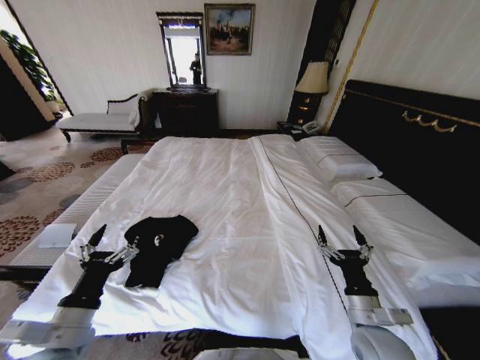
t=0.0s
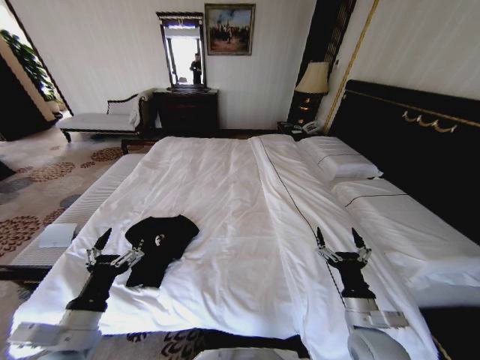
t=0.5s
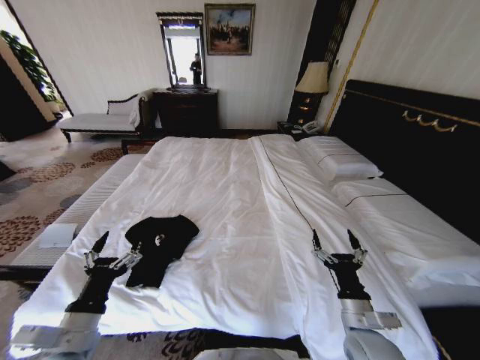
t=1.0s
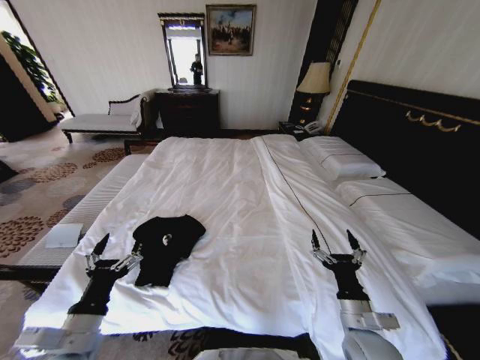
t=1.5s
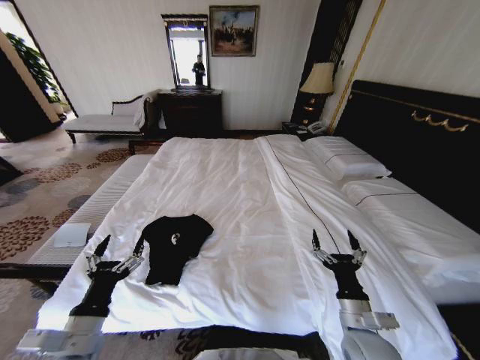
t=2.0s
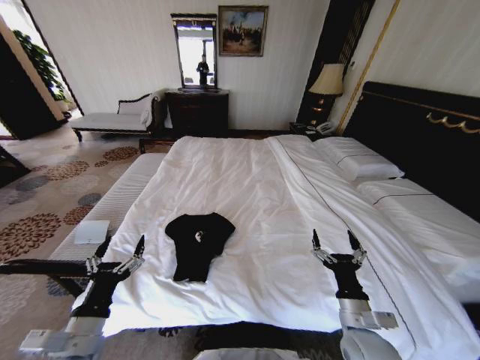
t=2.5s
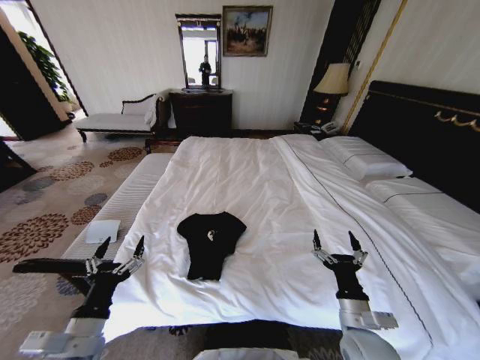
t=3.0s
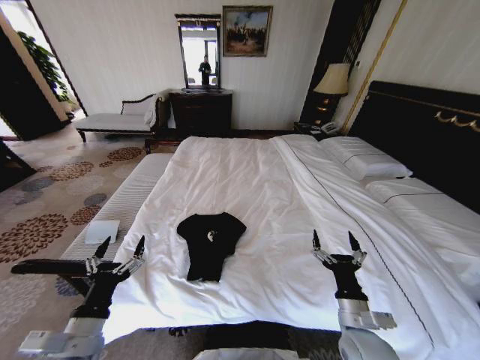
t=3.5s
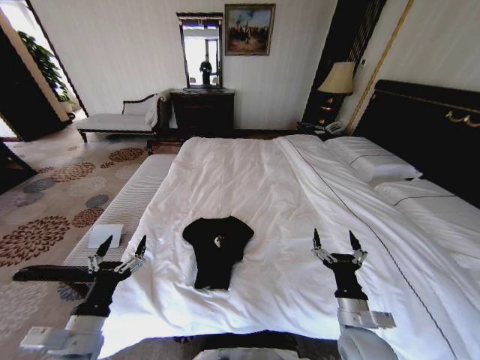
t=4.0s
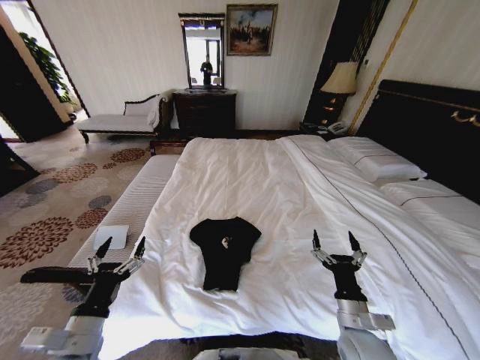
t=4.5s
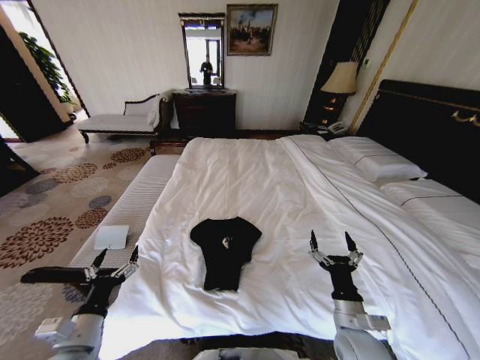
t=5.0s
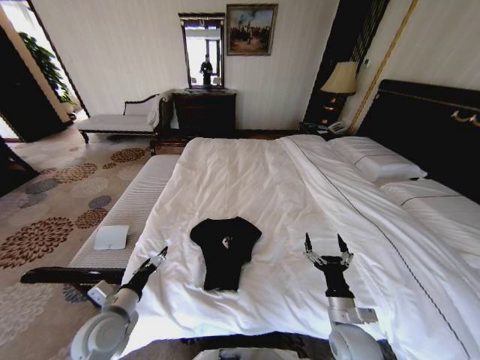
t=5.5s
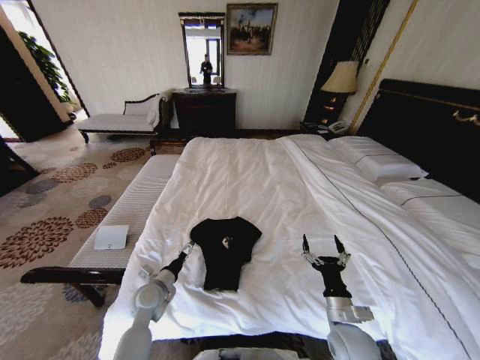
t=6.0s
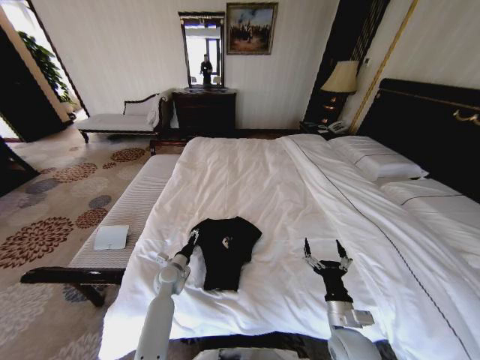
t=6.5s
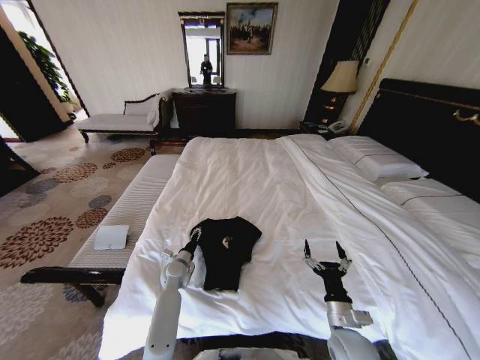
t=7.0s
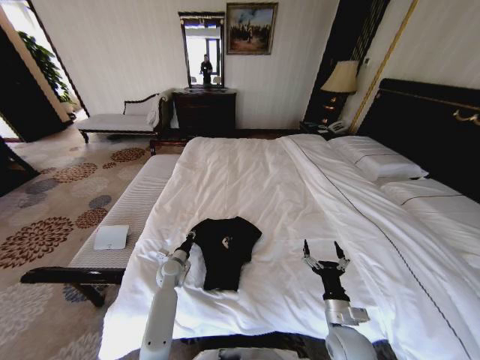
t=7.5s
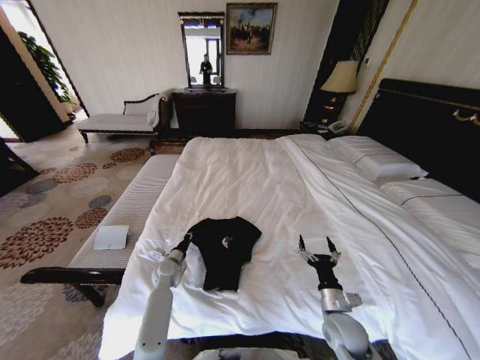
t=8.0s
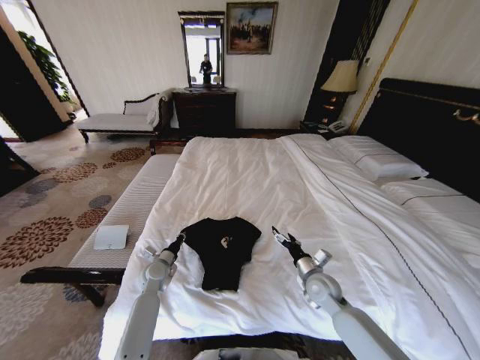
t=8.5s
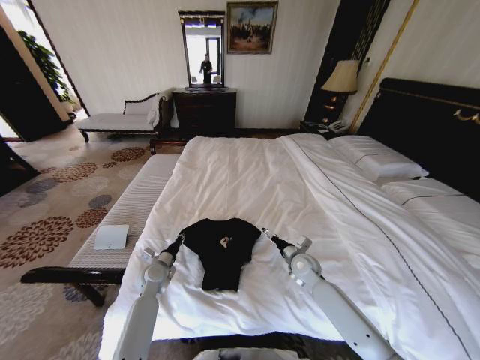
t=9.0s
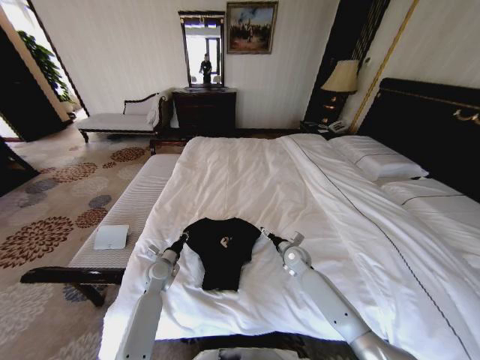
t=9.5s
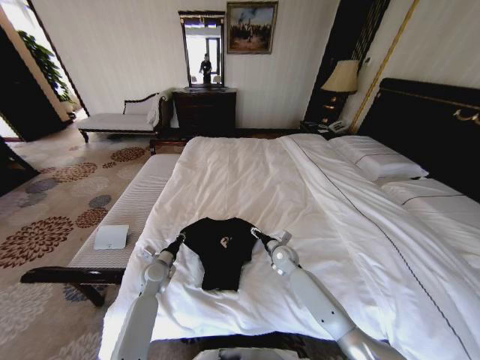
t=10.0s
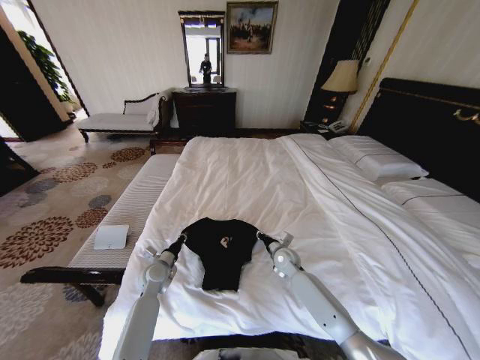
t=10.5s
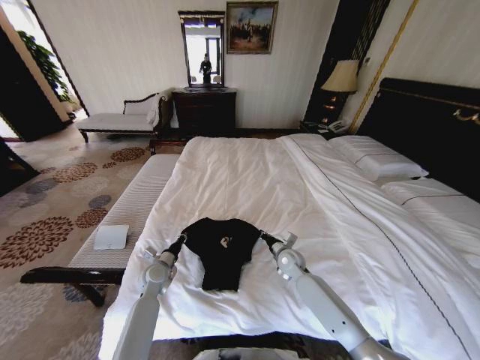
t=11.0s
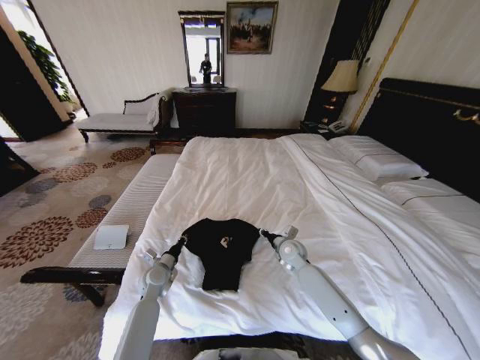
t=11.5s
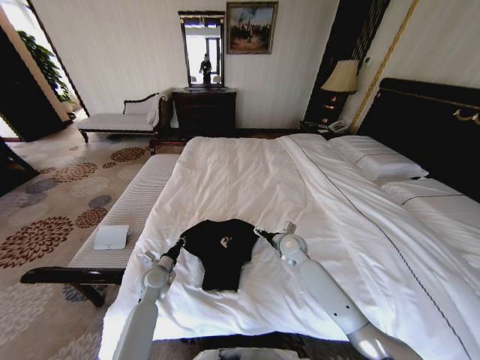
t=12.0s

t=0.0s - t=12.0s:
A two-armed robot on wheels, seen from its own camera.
Task of the whole recording: Fold the clothes on the bed.
t=4.0s - t=6.0s: The left gripper shifts approximately 20 cm forward and downward.
t=6.0s - t=8.0s: The left gripper travels forward and downward by approximately 10 cm, and closes.
t=8.0s - t=10.0s: The left gripper moves approximately 5 cm; the right gripper shifts approximately 25 cm forward.
t=10.0s - t=12.0s: The right gripper travels upward by approximately 5 cm, and closes and opens again.

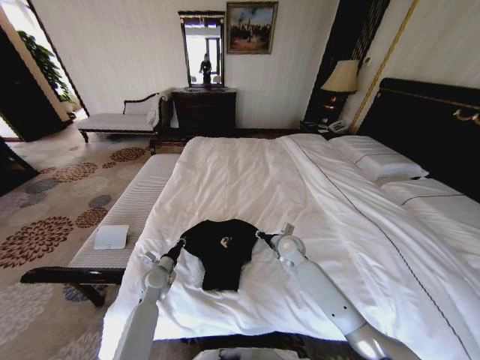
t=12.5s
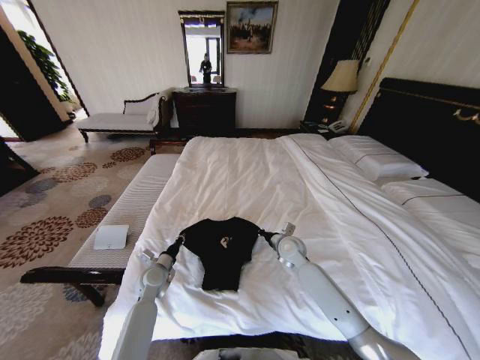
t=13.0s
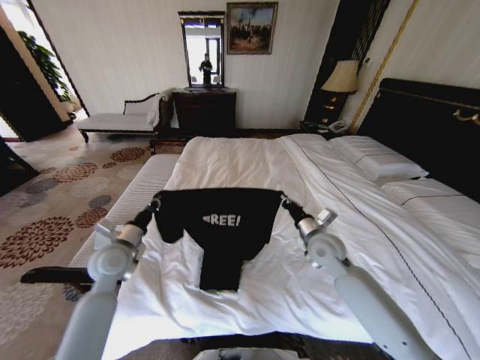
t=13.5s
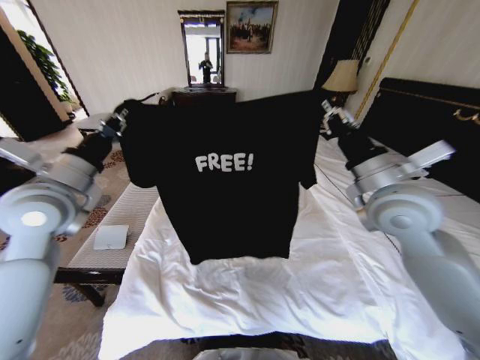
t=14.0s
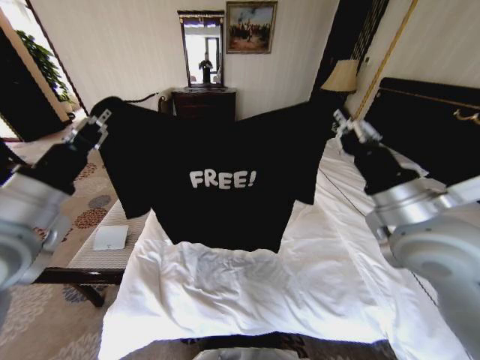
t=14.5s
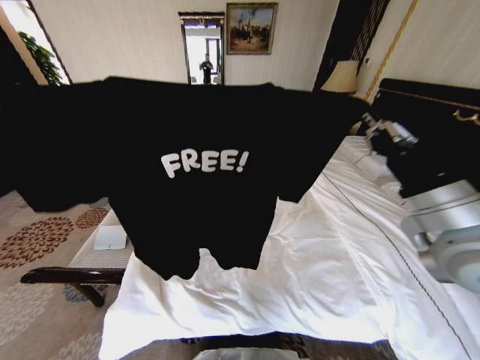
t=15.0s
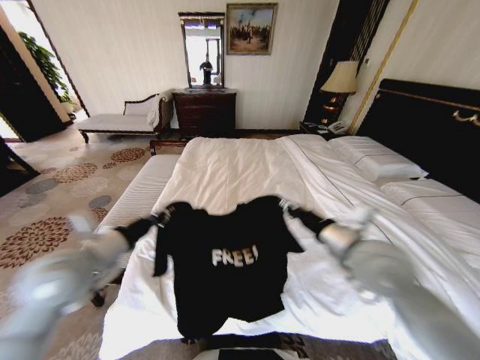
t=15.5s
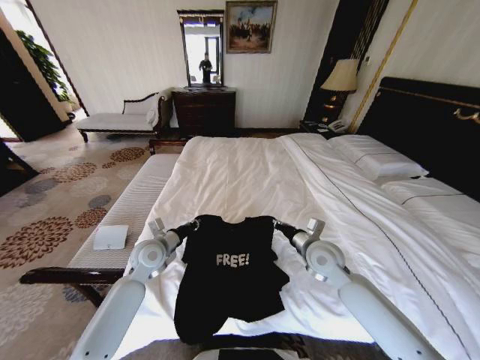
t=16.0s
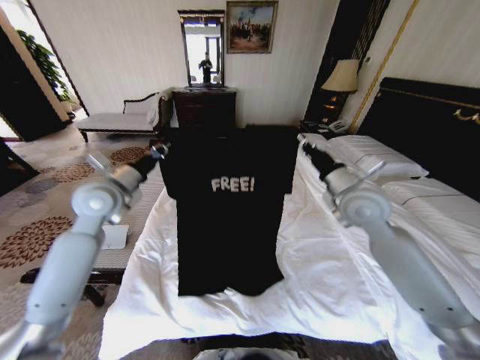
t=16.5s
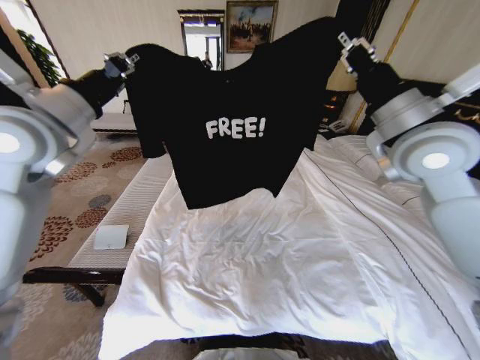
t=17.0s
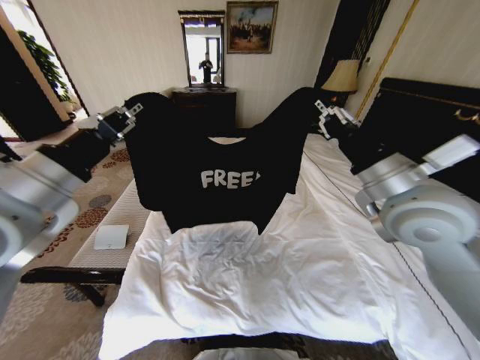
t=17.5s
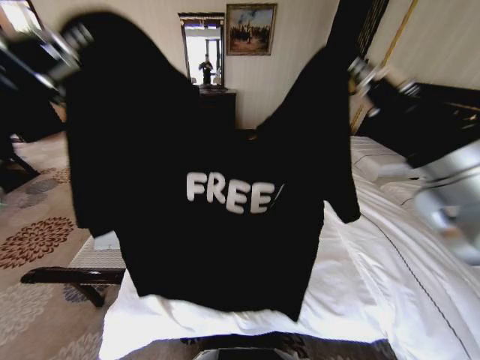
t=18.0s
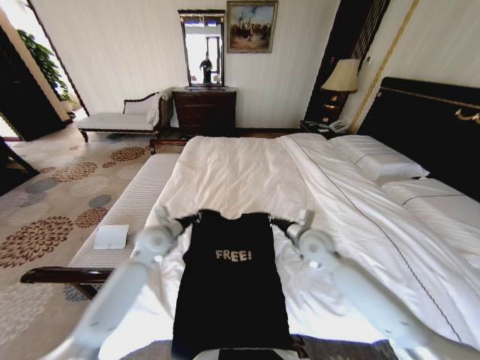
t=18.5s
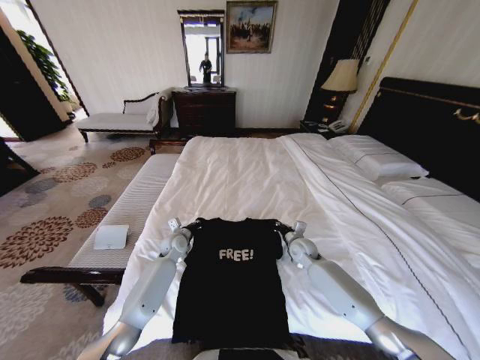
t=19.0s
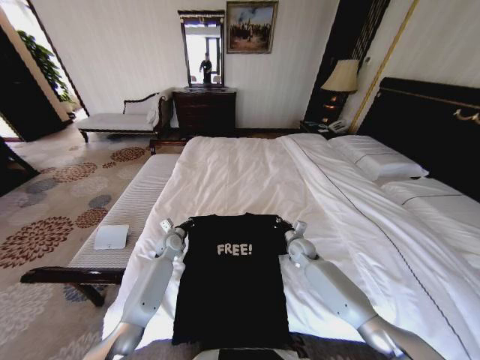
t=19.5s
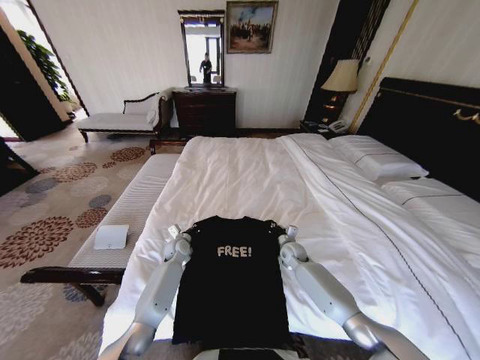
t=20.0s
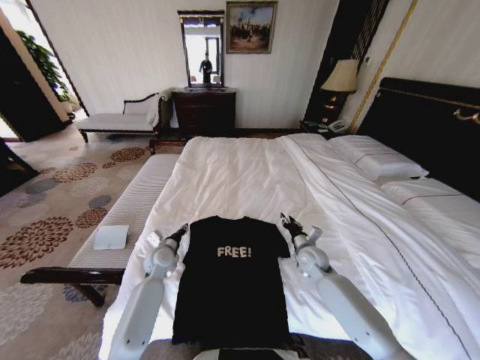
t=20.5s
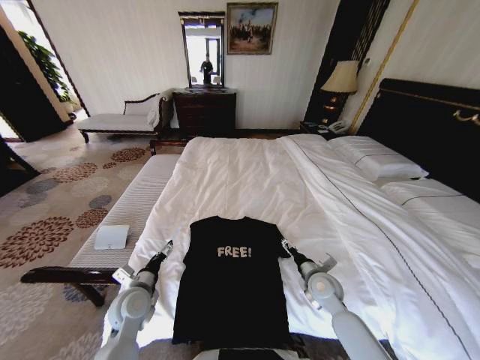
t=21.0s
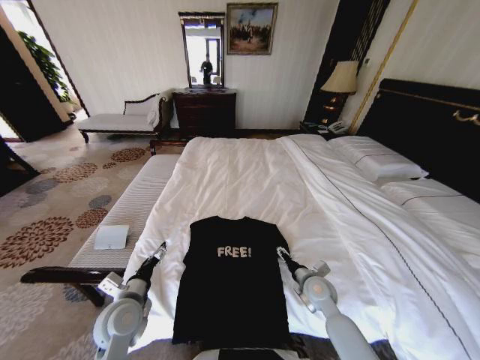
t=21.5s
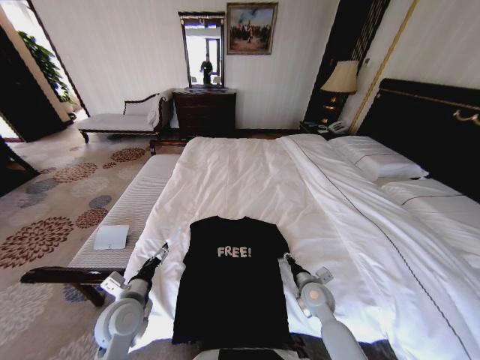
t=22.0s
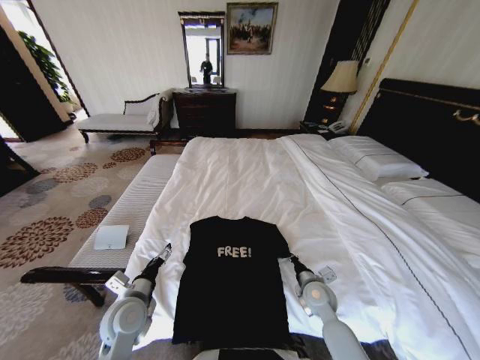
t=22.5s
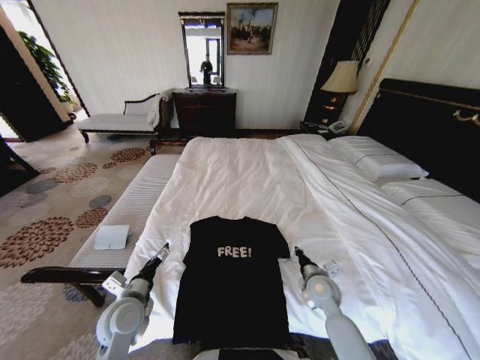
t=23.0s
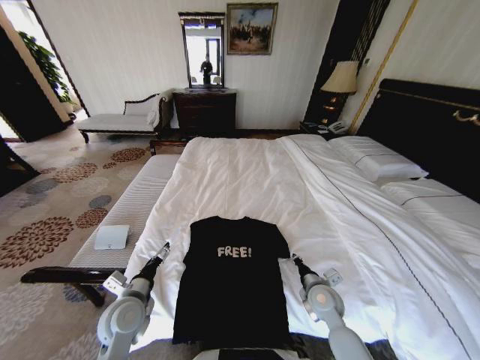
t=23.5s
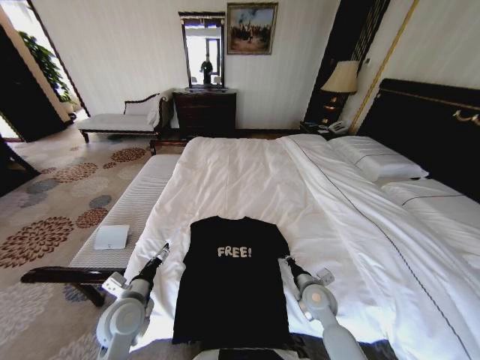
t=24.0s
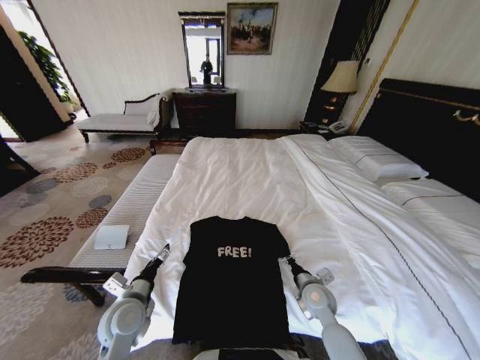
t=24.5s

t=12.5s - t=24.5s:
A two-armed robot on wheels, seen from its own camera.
Task of the whole recording: Fold the clothes on the bed.
t=12.5s - t=14.5s: The right gripper is displaced upward and backward by some 35 cm, and closes up. The left gripper heads upward, covering about 40 cm.
t=14.5s - t=16.5s: The grippers both shift forward by about 15 cm. The right gripper goes downward and returns, some 20 cm each way, while the left gripper moves approximately 25 cm downward and comes back.
t=16.5s - t=18.5s: The right gripper goes up and down, approximately 30 cm each way, reversing 3 times. Meanwhile the left gripper moves up and down over roughly 35 cm, changing direction 3 times.
t=18.5s - t=20.5s: Both grippers travel together downward, some 10 cm. The right gripper opens its fingers; the left gripper opens its fingers.
t=20.5s - t=22.5s: The right gripper is displaced backward by roughly 10 cm, and closes its fingers. Meanwhile the left gripper heads backward, covering roughly 20 cm, and opens its fingers.
t=22.5s - t=24.5s: The grippers stay close to where they were, moving slightly.

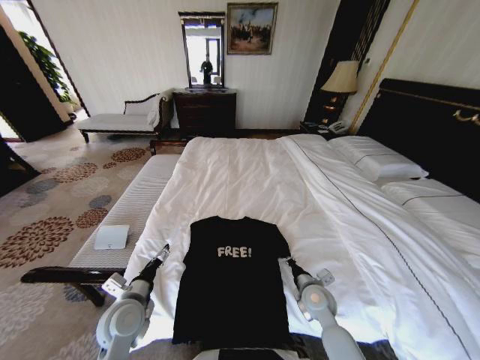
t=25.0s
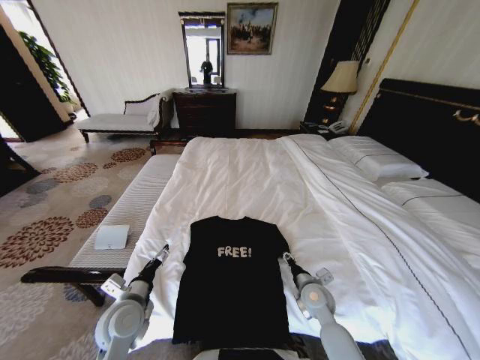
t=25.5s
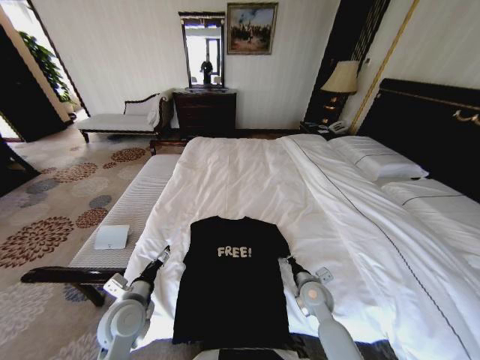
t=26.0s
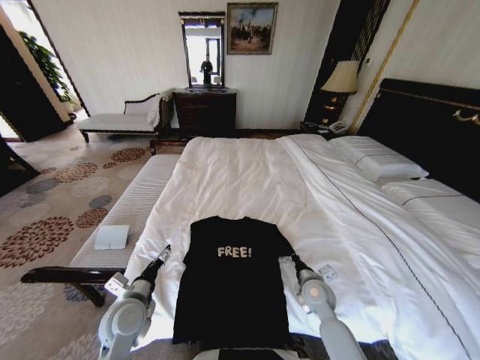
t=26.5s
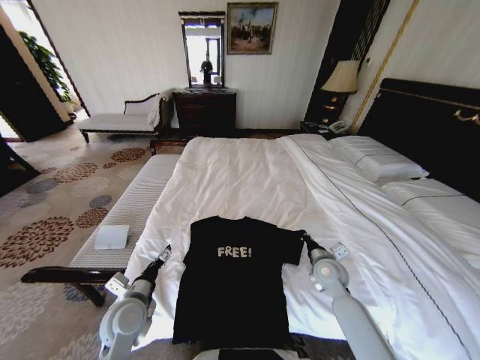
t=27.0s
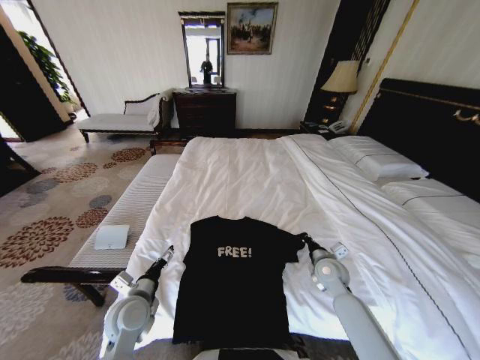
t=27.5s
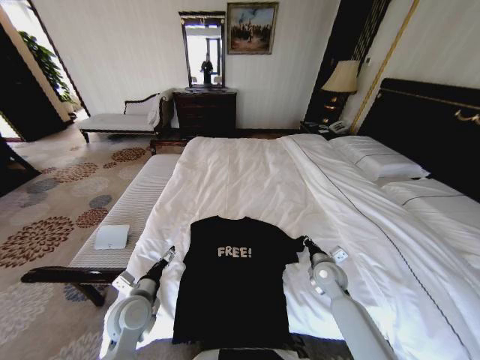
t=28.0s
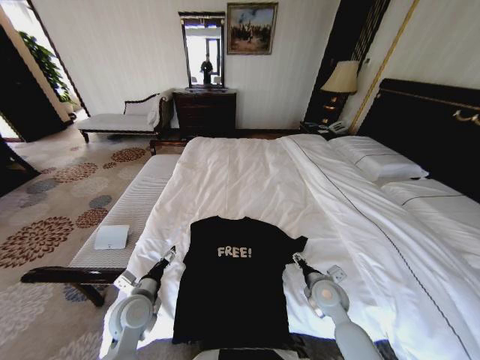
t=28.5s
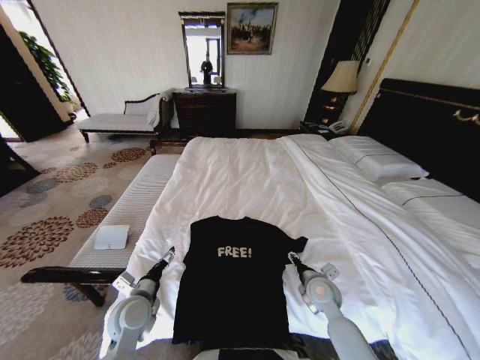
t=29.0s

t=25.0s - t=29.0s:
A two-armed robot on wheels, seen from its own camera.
Task of the whole recording: Fold the clothes on the bed.
t=25.0s - t=27.0s: The right gripper is displaced forward by approximately 5 cm, and opens, then closes again.
t=27.0s - t=29.0s: The right gripper ends up some 5 cm from where it was, and opens up.
